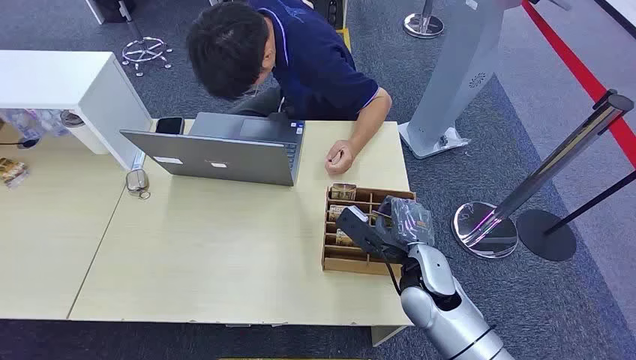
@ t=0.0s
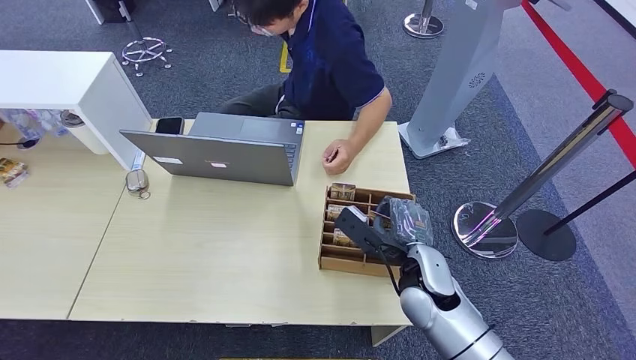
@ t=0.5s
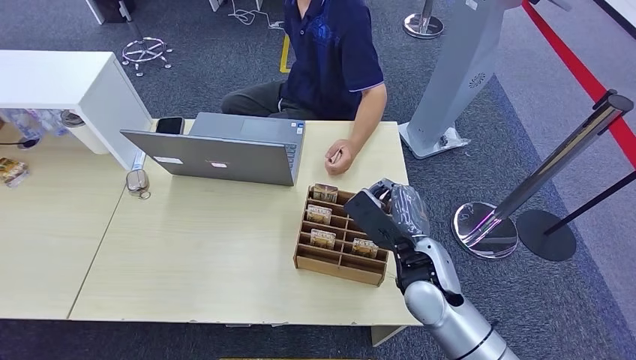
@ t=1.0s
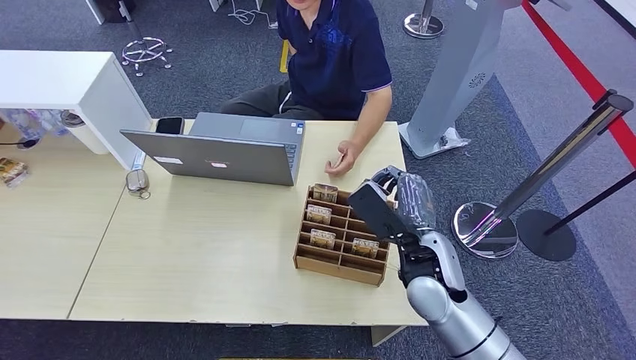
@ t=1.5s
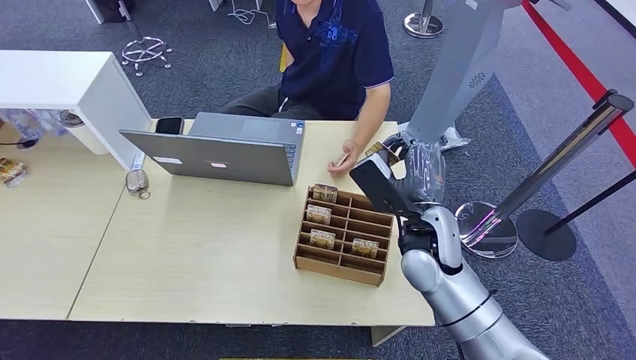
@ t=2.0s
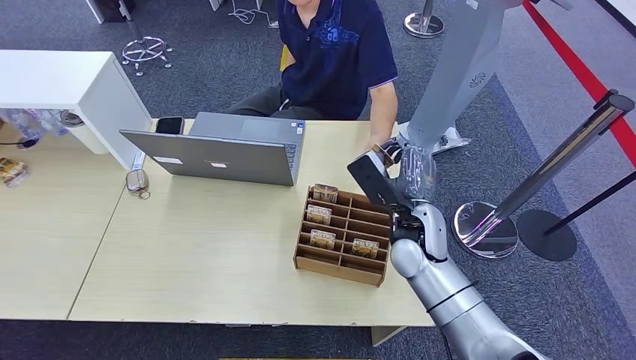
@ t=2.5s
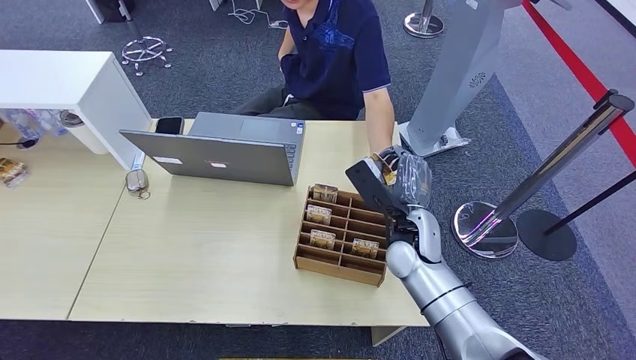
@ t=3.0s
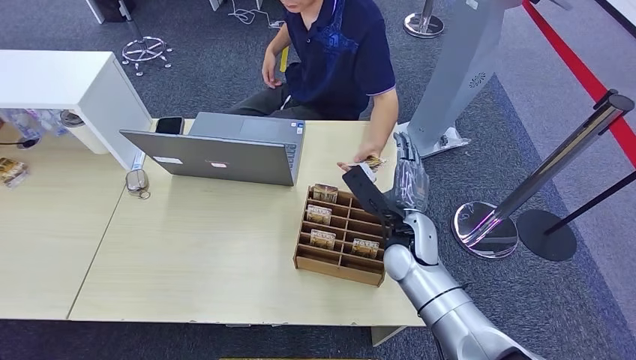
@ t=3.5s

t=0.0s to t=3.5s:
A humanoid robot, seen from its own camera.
Step, t=0.0s to t=1.0s: Pick up the key card from the card box.
Step, t=3.0s to t=3.5s: Hand the key card to the target.
t=2.0s to t=3.5s: The right hand heads downward, covering approximately 5 cm.
